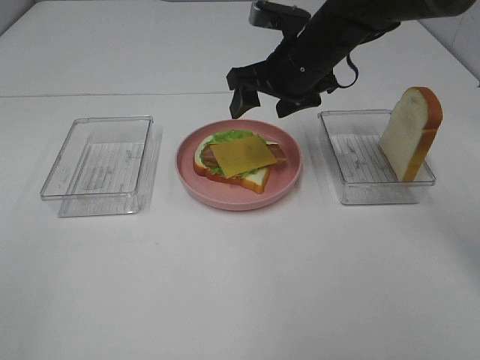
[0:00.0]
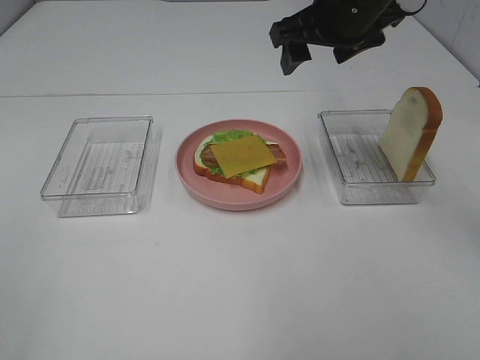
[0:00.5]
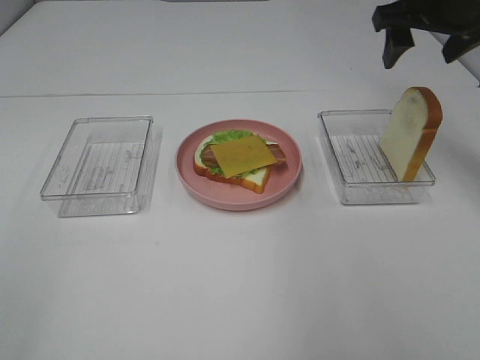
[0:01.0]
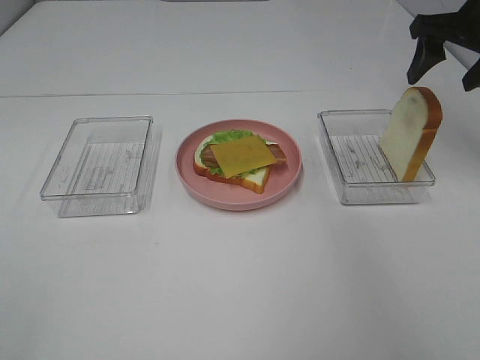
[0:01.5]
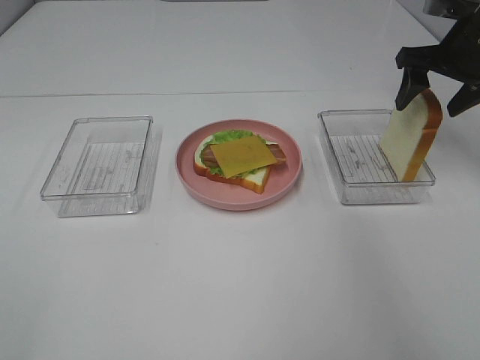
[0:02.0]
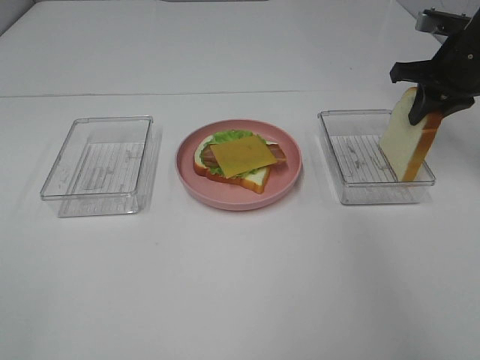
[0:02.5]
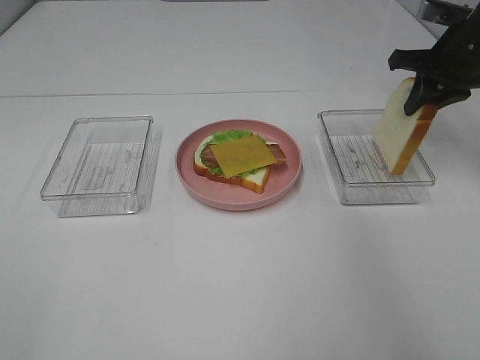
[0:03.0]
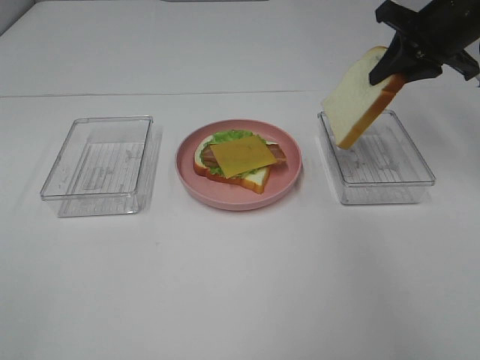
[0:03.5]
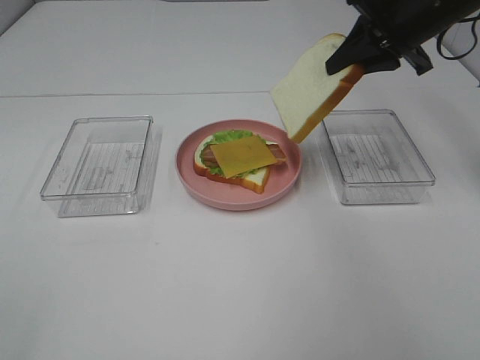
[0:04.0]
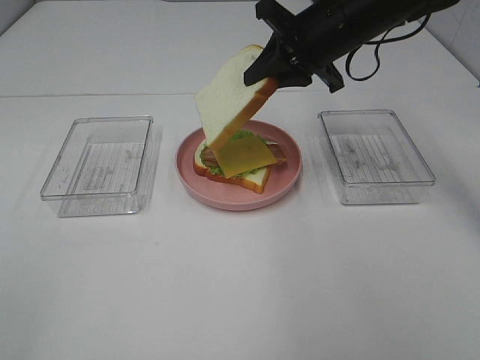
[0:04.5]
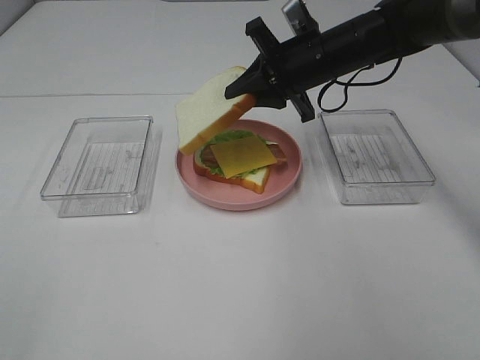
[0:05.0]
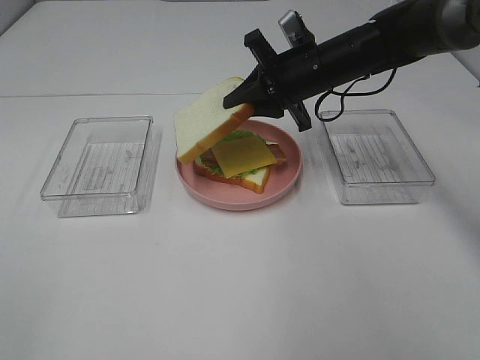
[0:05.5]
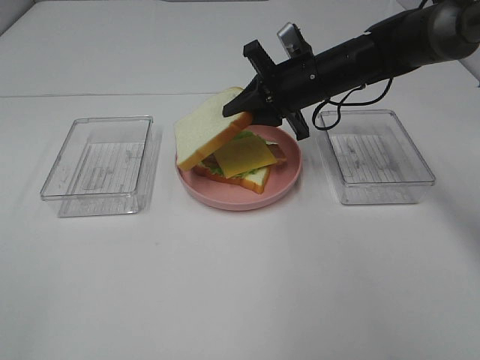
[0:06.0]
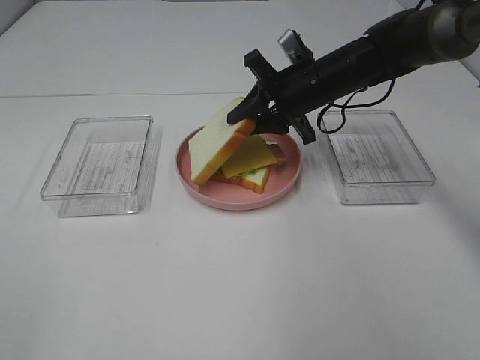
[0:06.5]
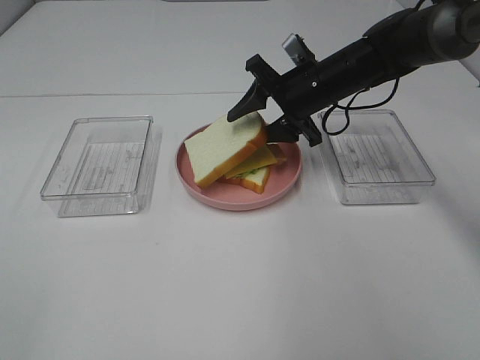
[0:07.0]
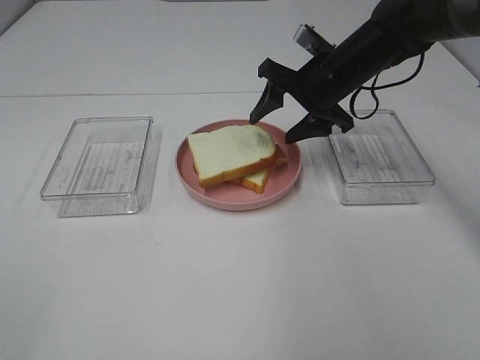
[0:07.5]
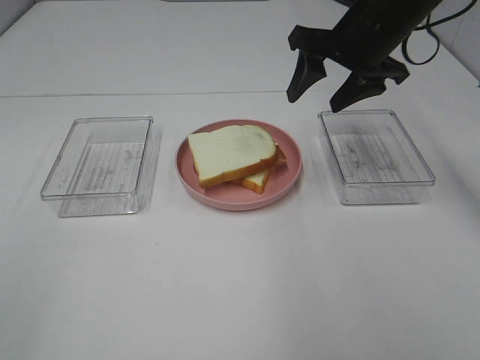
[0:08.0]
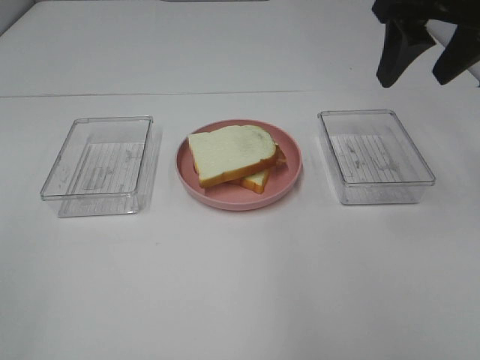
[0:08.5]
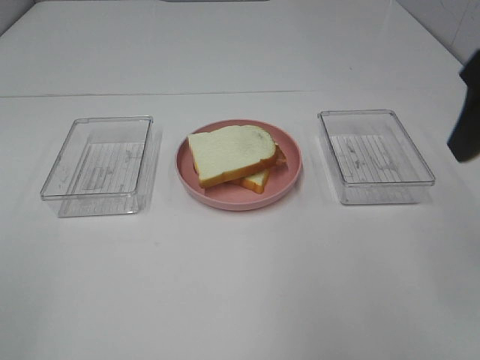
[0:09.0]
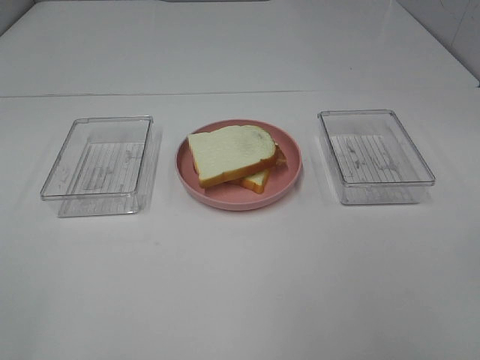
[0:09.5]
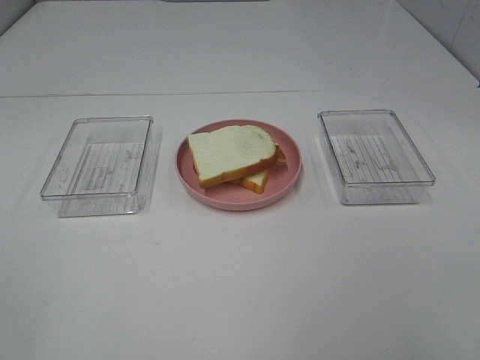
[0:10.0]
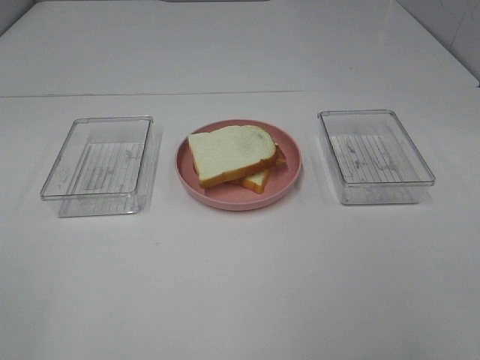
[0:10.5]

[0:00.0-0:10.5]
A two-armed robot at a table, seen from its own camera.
Task of the whole recording: Make sandwiches.
Step, 0:00.0 to 0:02.5: Right hand:grab the bread slice.
Step, 0:03.0 to 0:07.5: Right hand:place the bread slice on the cheese slice.
0:00.0 to 0:02.0: The right gripper goes approximately 20 cm to the right.
0:02.0 to 0:04.0: The right gripper heads to the left, covering some 10 cm, and closes up.
0:04.0 to 0:06.5: The right gripper heads downward and to the left, covering about 15 cm.
0:06.5 to 0:08.5: The right gripper is displaced upward, backward and to the right by some 25 cm, and opens up.
0:08.5 to 0:10.5: The right gripper shifts approximately 30 cm backward.
